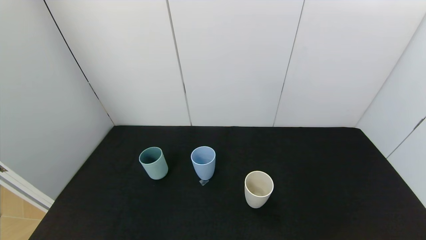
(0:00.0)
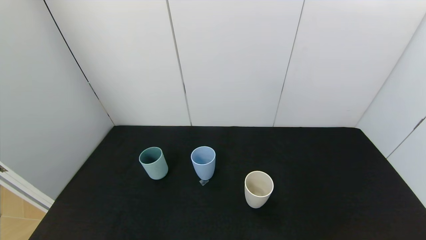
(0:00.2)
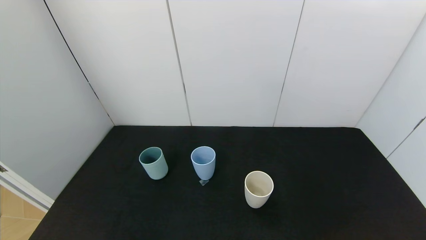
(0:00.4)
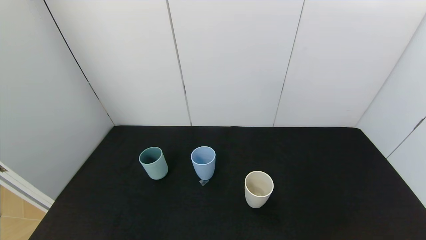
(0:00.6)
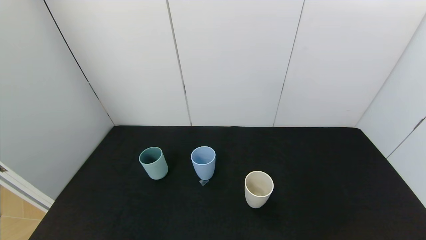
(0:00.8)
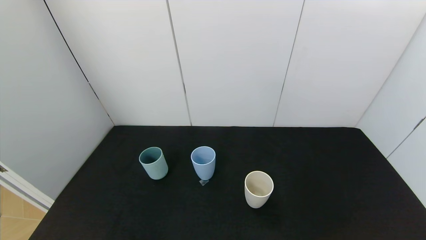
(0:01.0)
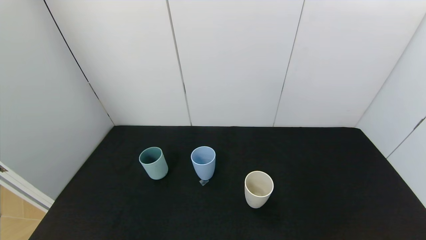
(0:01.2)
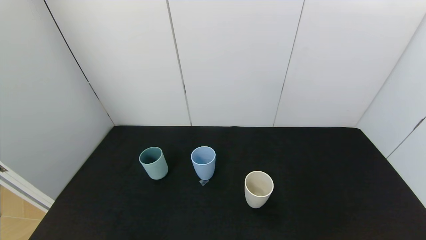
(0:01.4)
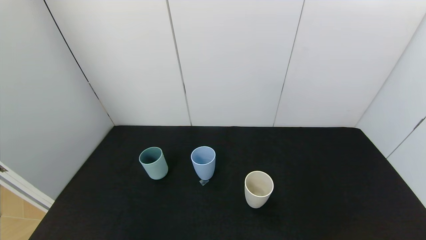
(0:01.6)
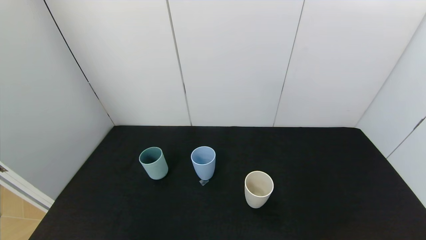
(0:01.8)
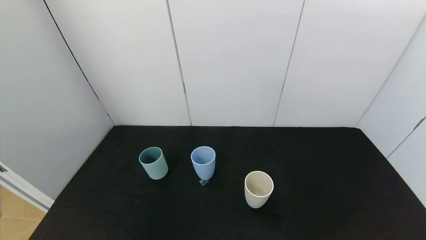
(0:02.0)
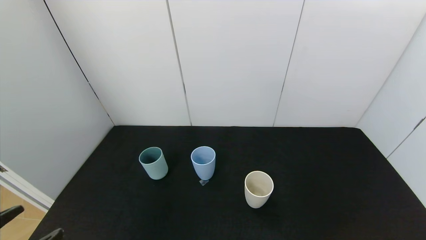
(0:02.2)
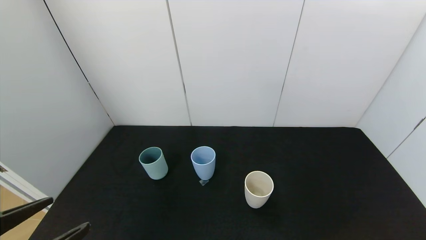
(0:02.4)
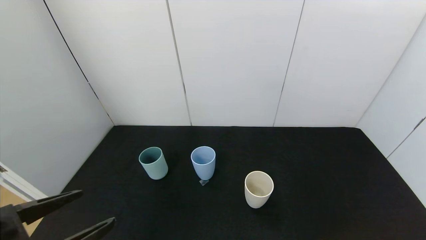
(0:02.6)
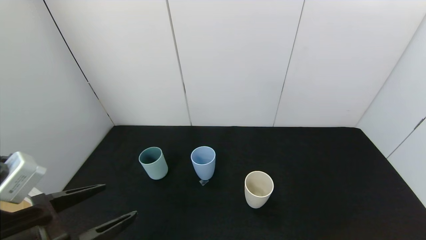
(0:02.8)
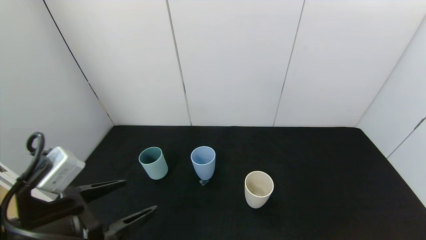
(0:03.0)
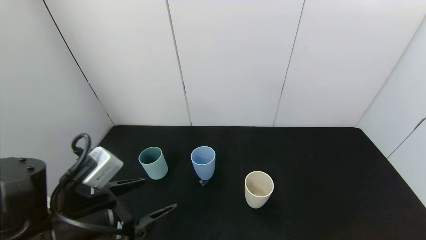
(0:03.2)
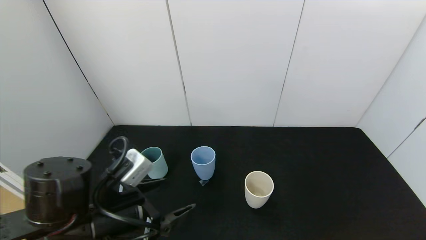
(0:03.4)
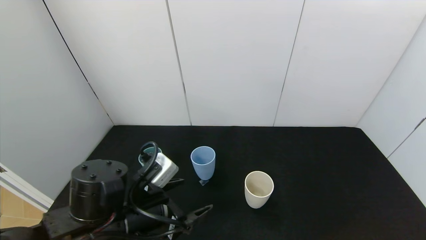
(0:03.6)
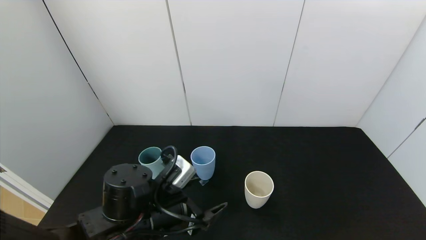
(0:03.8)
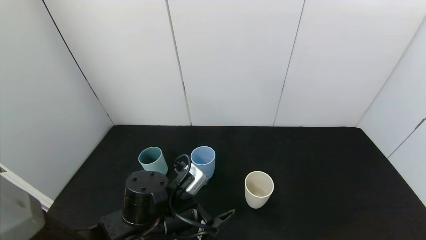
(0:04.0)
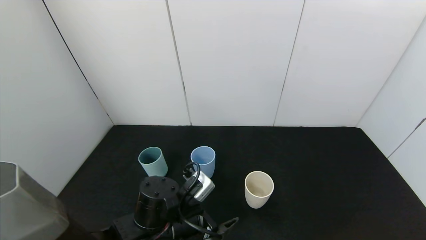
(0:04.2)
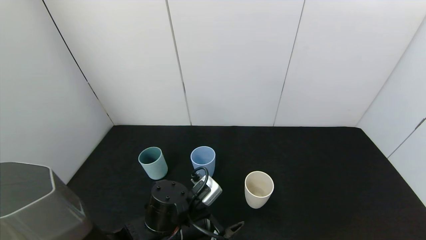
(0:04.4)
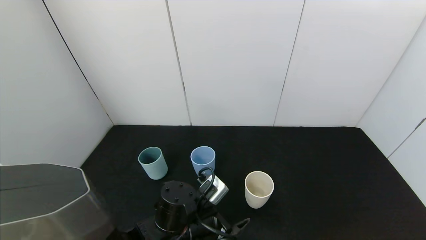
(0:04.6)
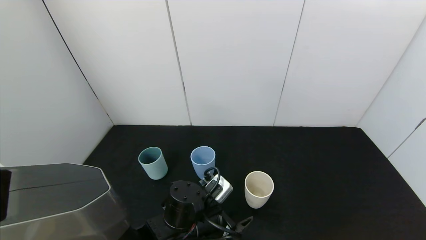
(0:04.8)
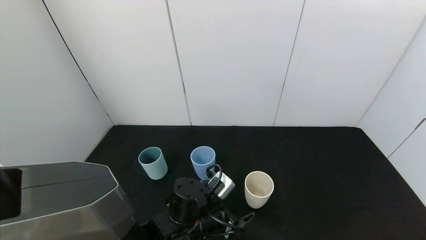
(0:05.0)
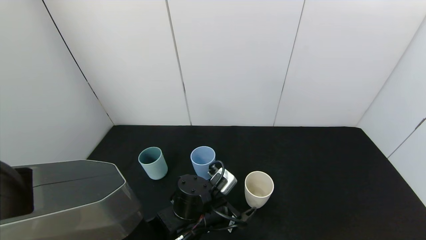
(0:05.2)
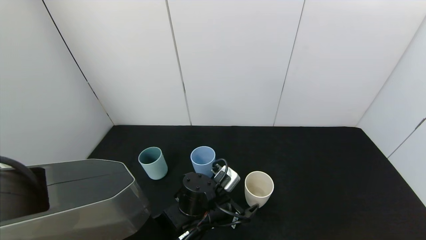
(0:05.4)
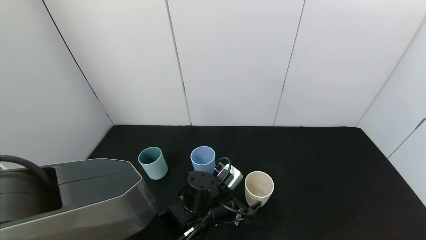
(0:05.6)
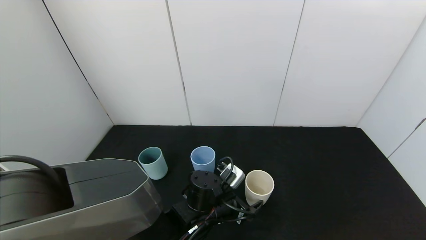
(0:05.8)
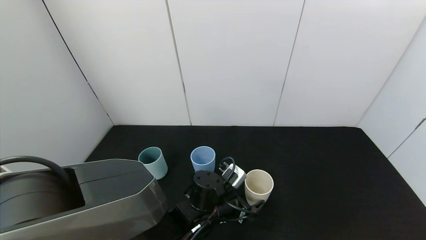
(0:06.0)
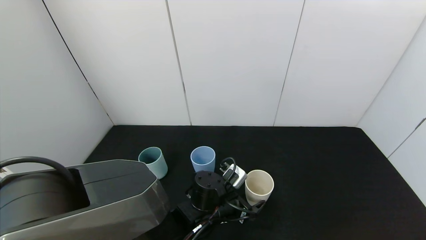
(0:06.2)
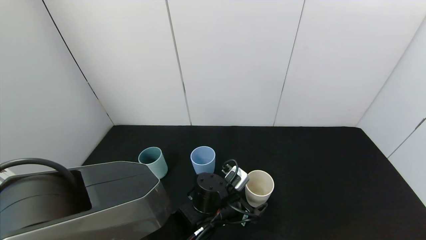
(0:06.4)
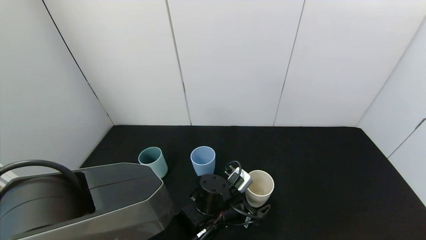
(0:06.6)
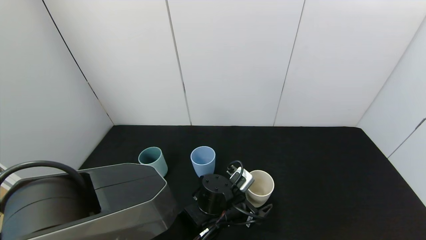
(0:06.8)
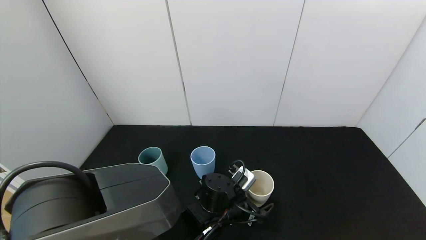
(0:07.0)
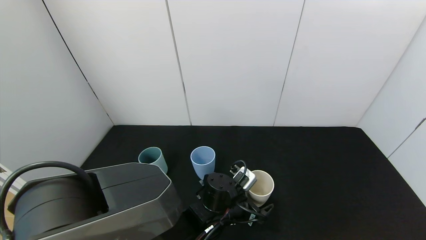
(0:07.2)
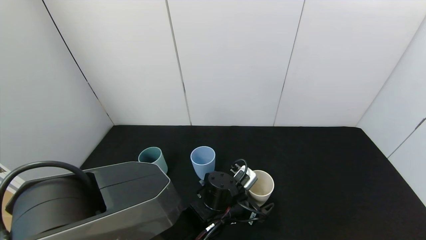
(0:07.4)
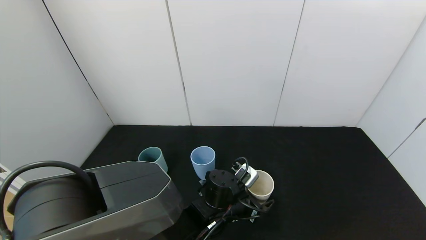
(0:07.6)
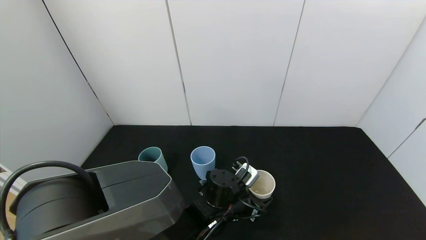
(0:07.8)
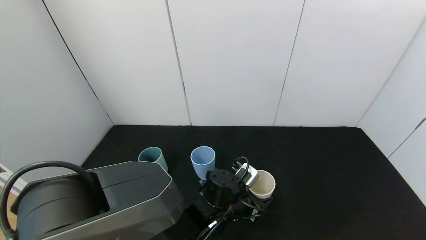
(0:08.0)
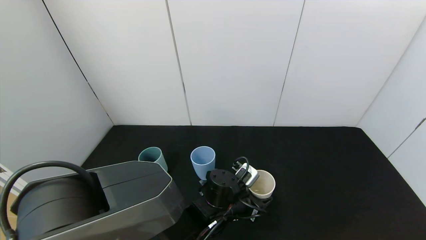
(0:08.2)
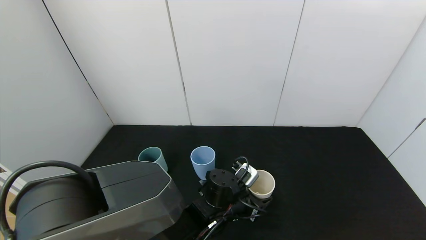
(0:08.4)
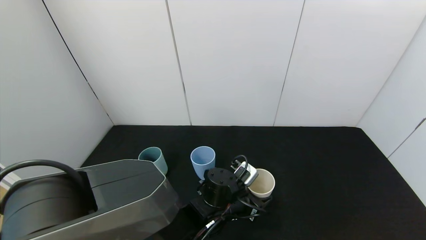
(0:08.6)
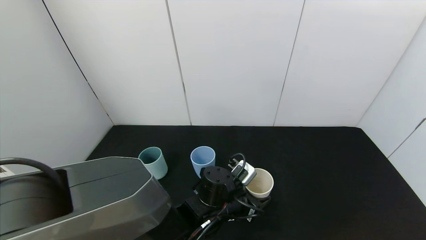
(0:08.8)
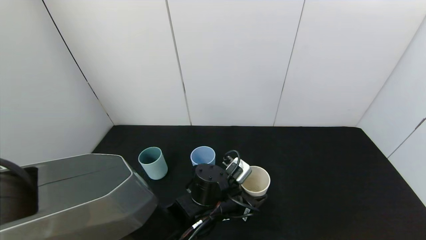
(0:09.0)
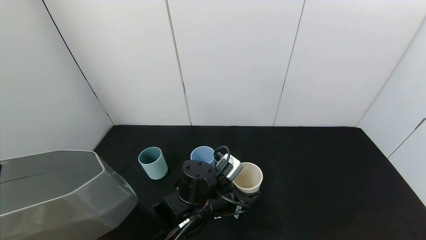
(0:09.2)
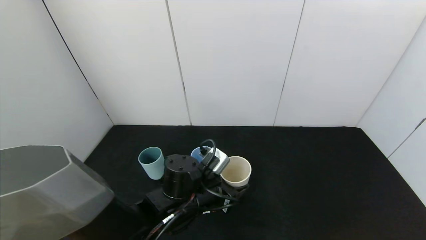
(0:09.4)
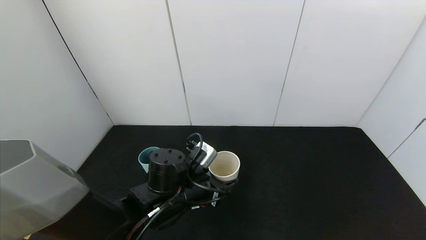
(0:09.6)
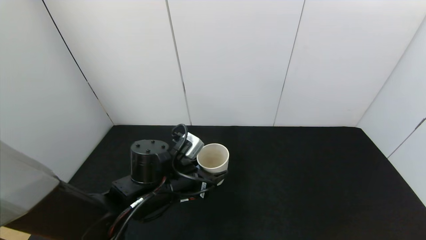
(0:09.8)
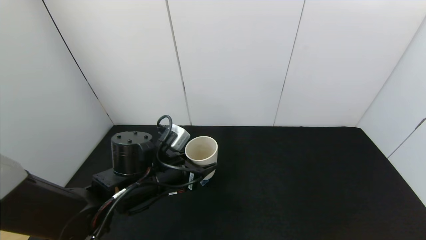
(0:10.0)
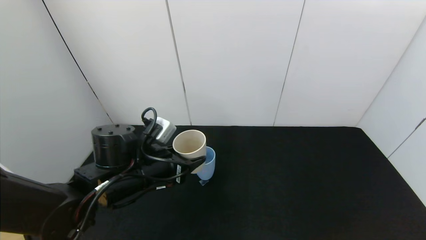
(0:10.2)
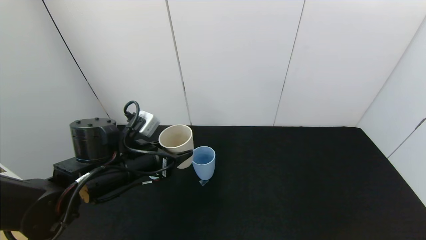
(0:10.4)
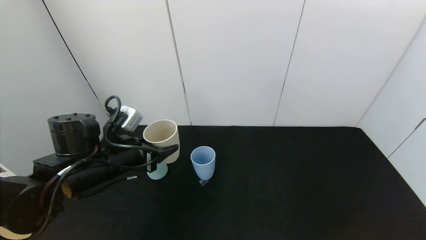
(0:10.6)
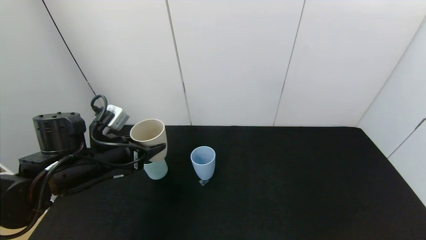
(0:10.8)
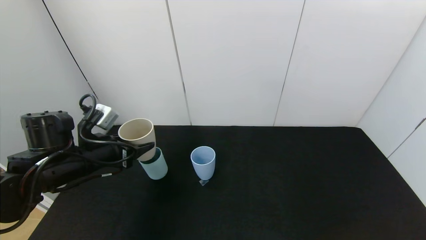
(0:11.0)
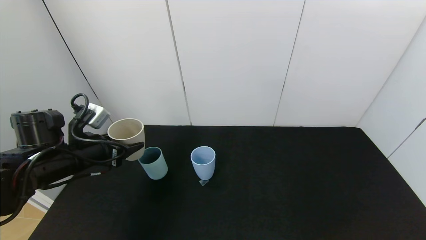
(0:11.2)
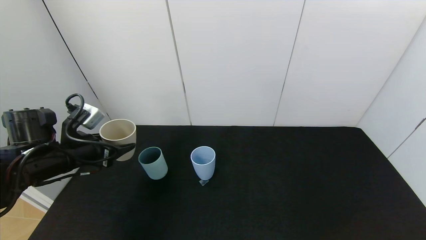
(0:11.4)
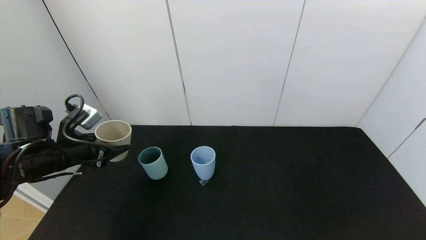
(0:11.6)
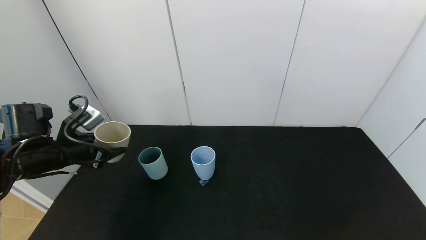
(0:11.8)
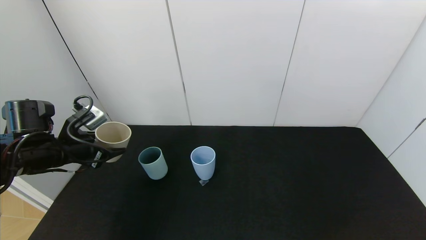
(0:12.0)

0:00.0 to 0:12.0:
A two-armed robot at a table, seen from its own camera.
Task of the whole recording: use the gripper to pour the water into the other two cups on black table.
Step, 0:00.0 to 0:08.0: Grasp the white cup with the left gripper.
0:01.6 to 0:03.0: The left gripper moves forward, some 15 cm.
0:03.0 to 0:04.4: The left gripper is displaced to the right, downward and forward by roughly 20 cm.
0:04.4 to 0:06.0: The left gripper goes approximately 10 cm to the right and forward.
0:06.0 to 0:07.6: There are only small adjustments of the grippers.
0:07.6 to 0:09.0: The left gripper closes.
0:09.0 to 0:10.4: The left gripper heads to the left and upward, covering approximately 20 cm.
0:10.4 to 0:12.0: The left gripper moves to the left, roughly 15 cm.

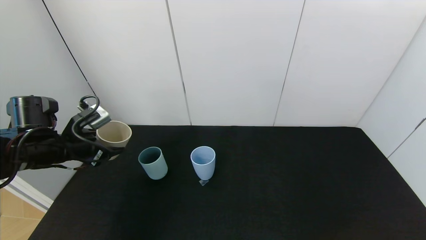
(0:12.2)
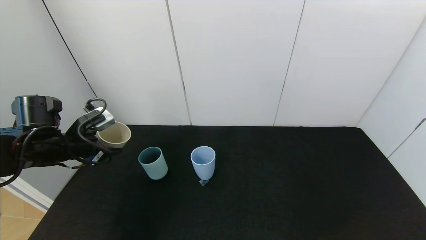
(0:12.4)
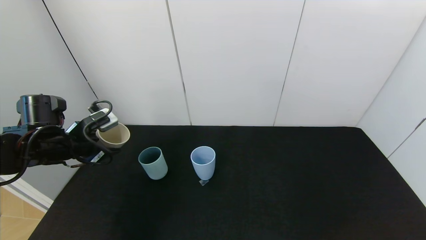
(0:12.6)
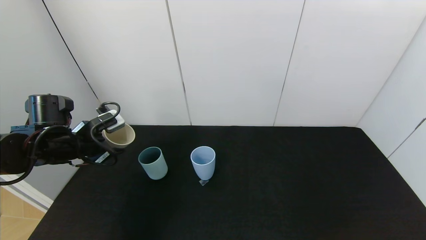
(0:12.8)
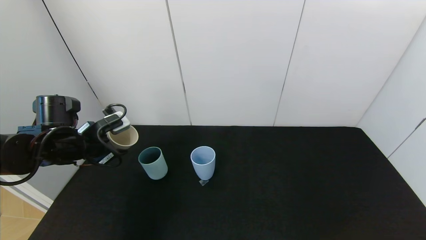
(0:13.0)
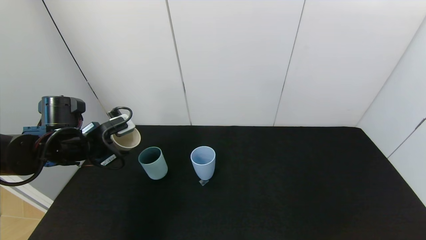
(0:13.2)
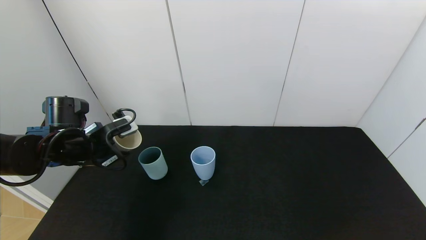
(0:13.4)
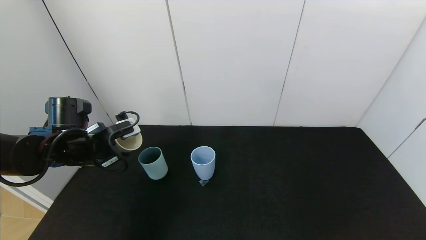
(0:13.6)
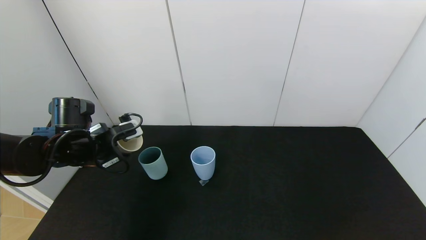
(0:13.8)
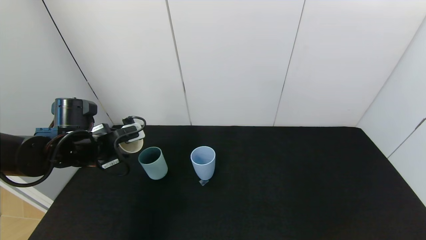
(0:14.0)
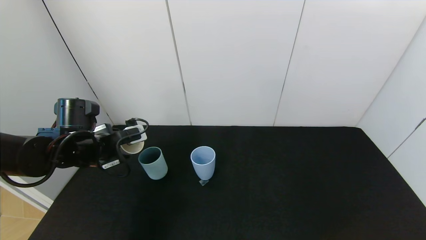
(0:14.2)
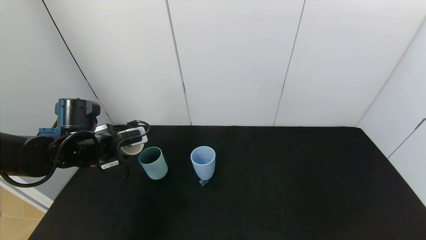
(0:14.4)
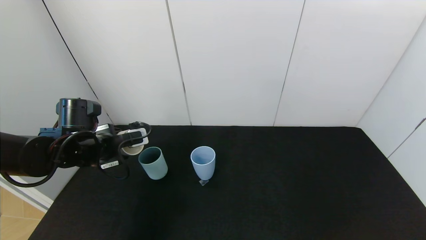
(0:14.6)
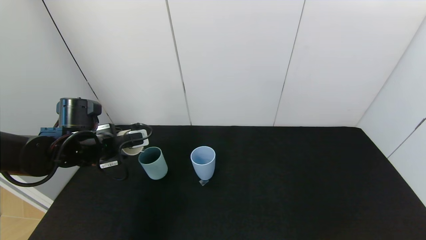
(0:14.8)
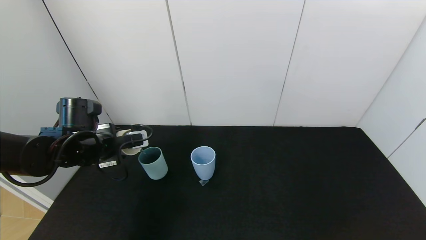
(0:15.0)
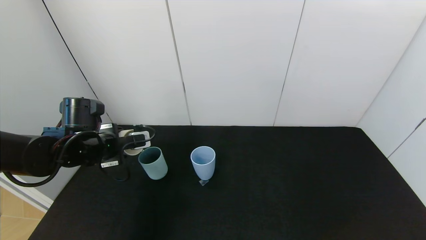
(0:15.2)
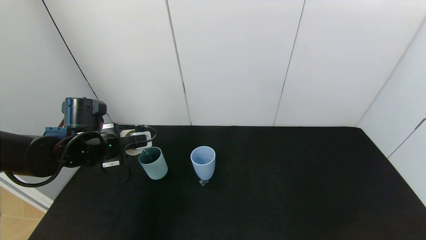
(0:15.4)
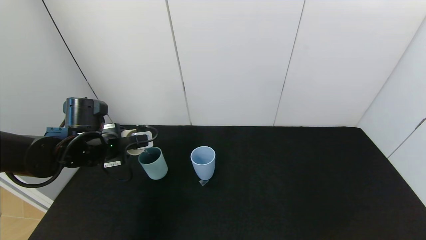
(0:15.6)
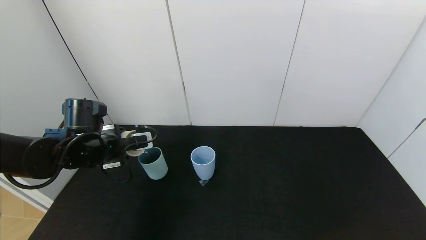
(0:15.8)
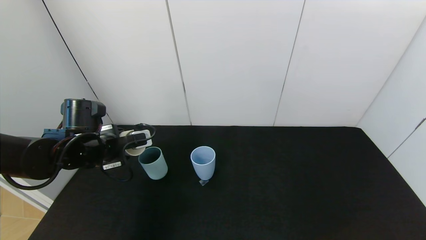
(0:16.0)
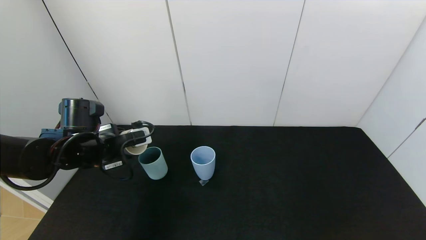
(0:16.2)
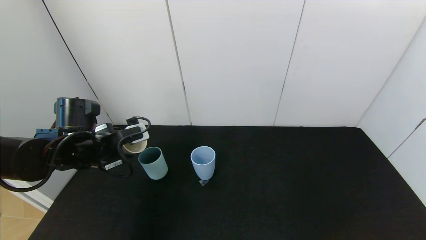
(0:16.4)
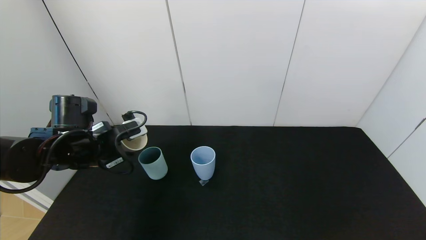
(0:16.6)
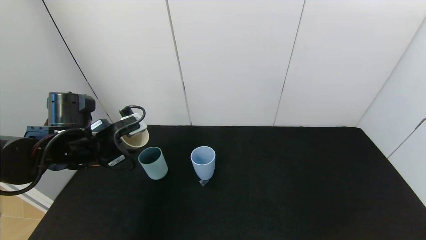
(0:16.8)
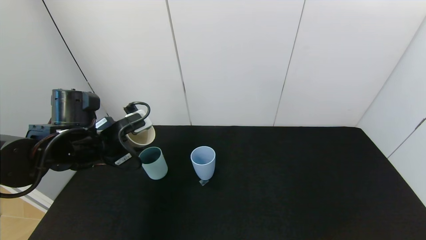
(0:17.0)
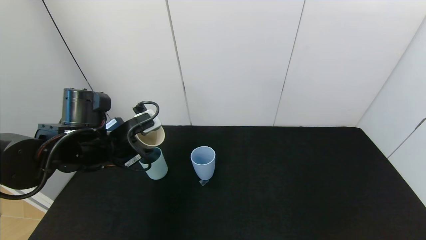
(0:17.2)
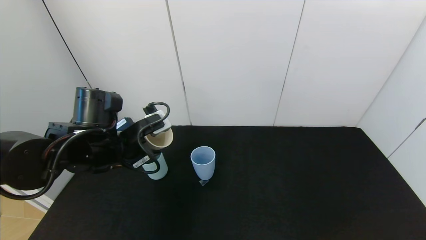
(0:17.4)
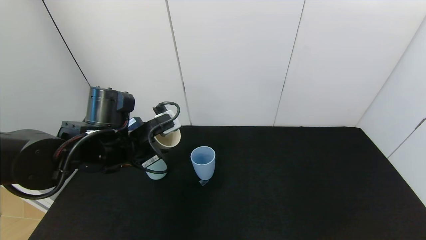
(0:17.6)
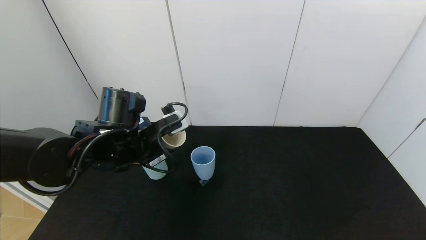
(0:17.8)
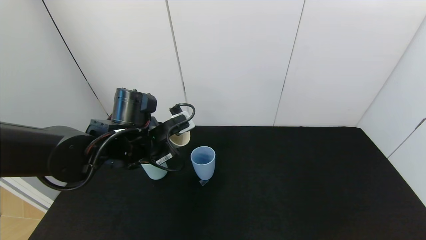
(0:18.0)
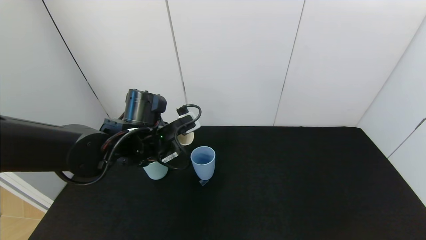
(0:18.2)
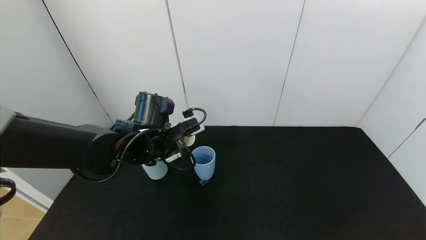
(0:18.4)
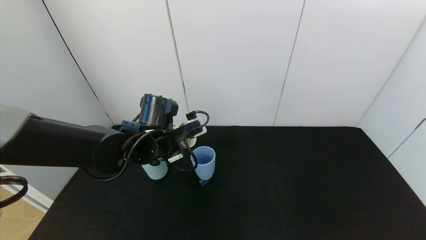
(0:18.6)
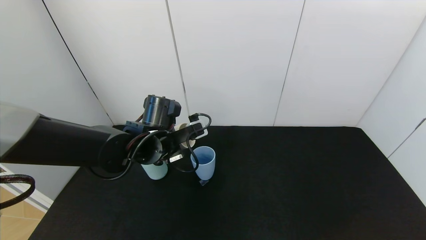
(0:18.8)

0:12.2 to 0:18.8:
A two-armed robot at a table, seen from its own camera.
Task of the whole recording: use the gripper to pour the water into the other two cups on black table.
Step, 0:12.2 to 0:16.6: Pour water from white cup to green cup with the left gripper.
0:13.8 to 0:15.4: The grippers move only a little.
0:15.4 to 0:17.2: The left gripper shifts by some 5 cm.
0:17.2 to 0:18.8: The left gripper is displaced to the right by some 10 cm.
